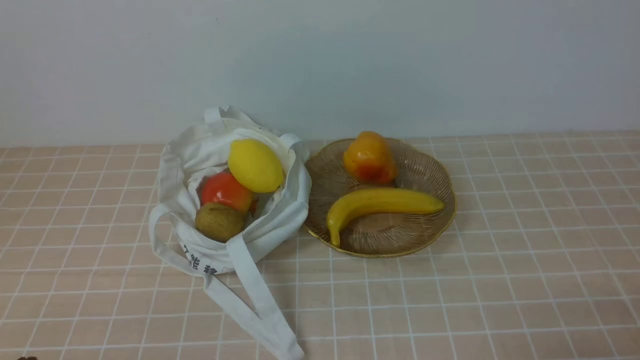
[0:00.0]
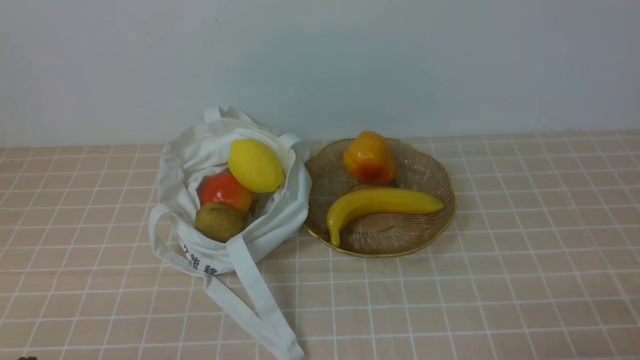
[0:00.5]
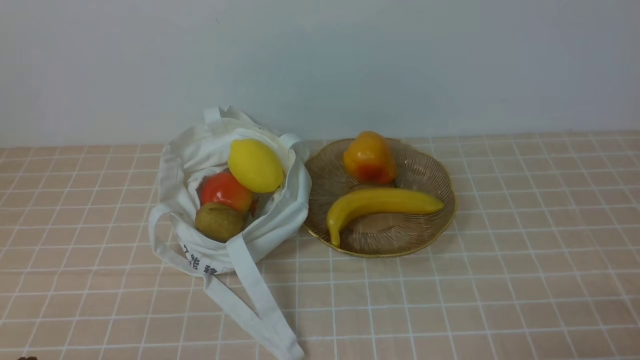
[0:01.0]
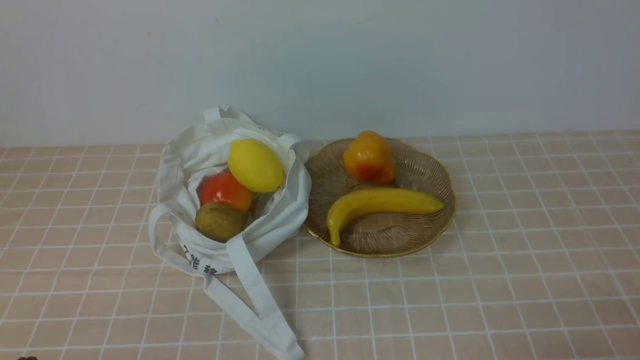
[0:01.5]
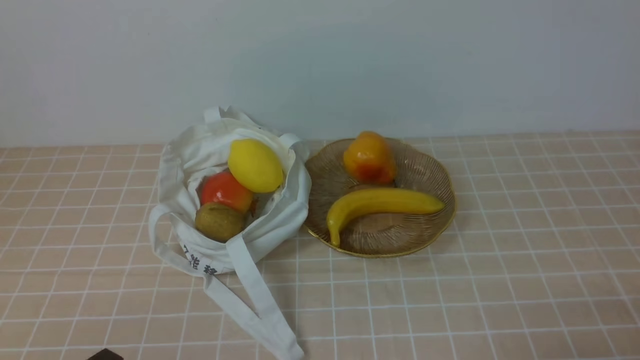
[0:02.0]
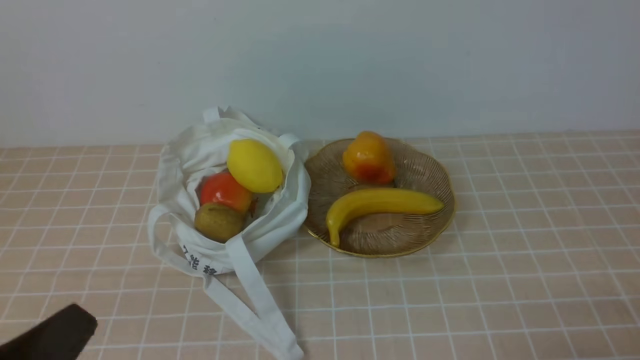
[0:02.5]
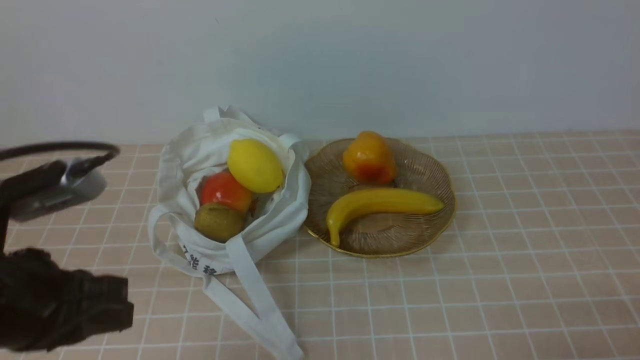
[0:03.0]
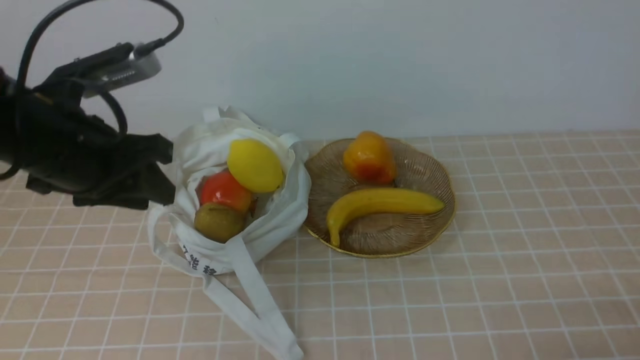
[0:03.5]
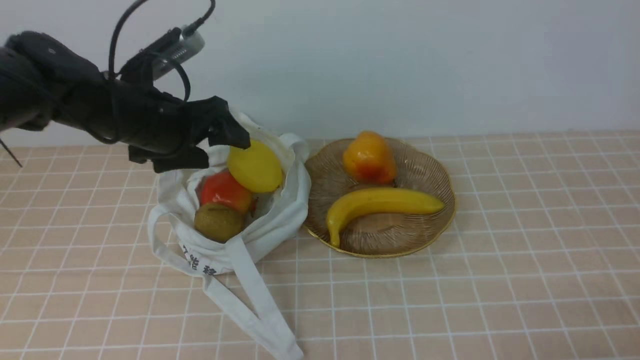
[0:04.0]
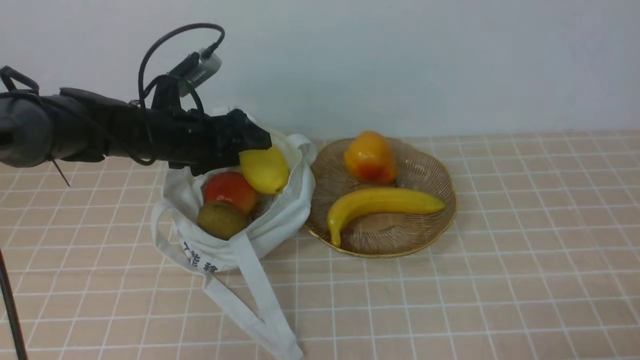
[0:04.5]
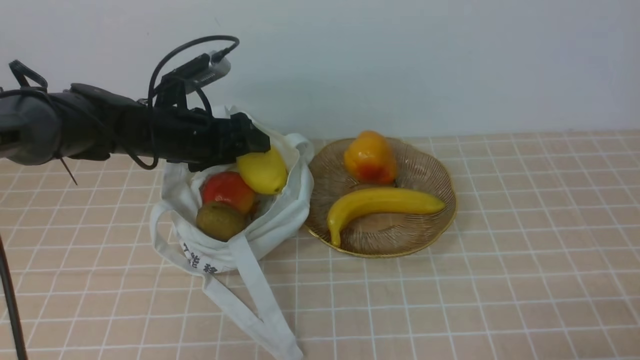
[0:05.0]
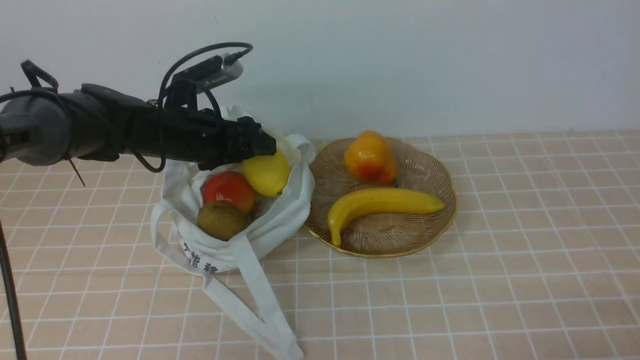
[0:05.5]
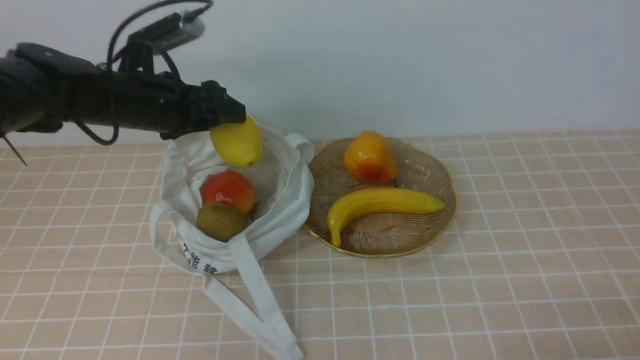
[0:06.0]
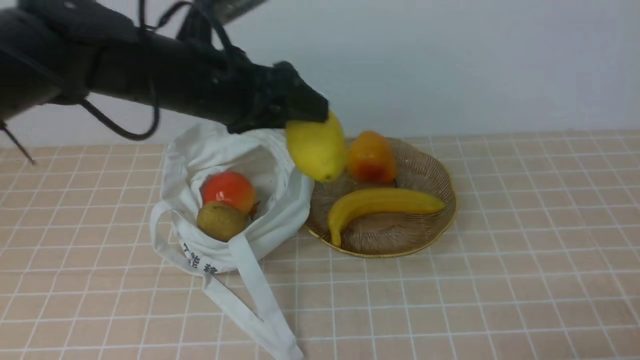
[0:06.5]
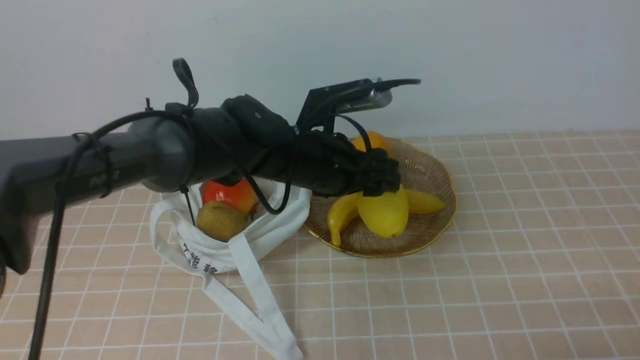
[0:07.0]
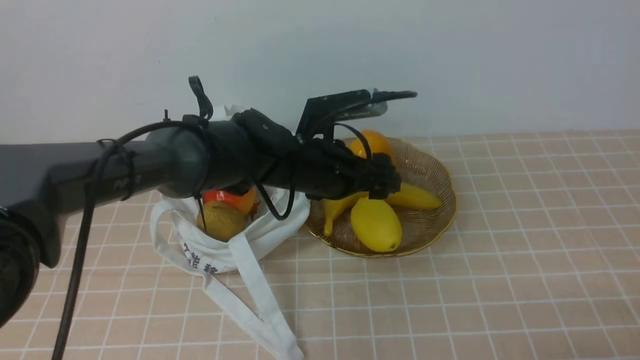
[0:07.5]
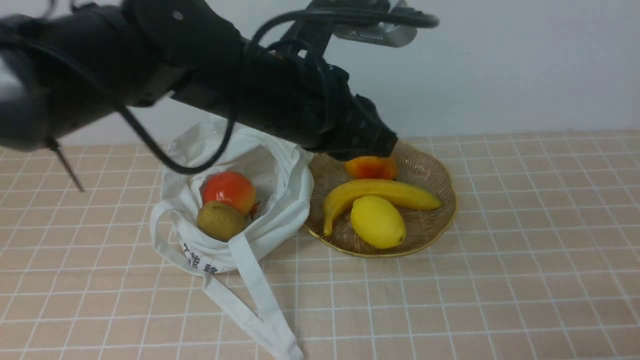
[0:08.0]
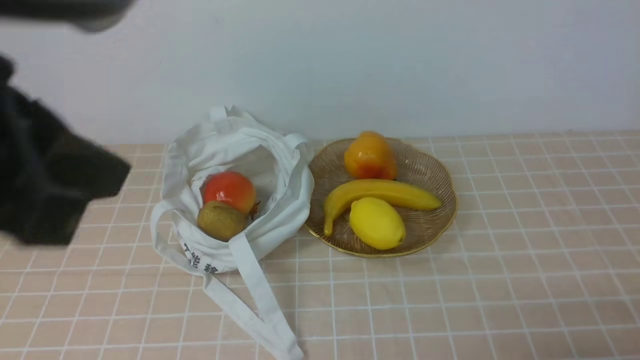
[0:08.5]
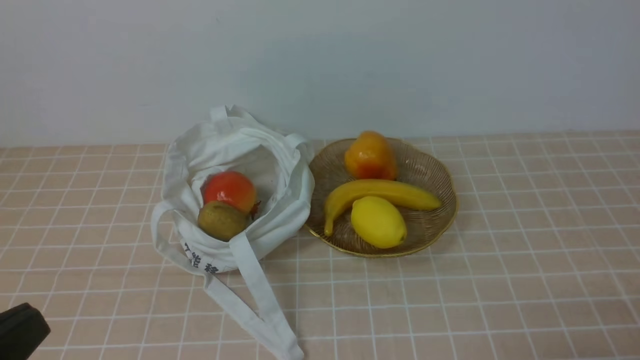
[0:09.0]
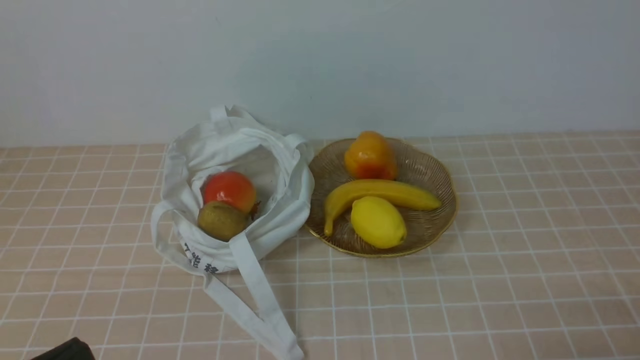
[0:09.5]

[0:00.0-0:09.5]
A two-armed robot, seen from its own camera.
Step, 0:00.0 to 0:05.5: use the left arm to grab a lemon from the bag.
Step, 0:06.0 to 0:07.0: use the left arm to put the lemon into the empty plate on the right.
0:02.0 to 0:04.0: The left gripper moves forward, approximately 35 cm, and opens its fingers.
0:04.0 to 0:05.5: The left gripper shifts some 5 cm downward.
0:05.5 to 0:07.5: The left gripper shifts approximately 15 cm to the right.
0:07.5 to 0:09.5: The left gripper heads backward and to the left, covering roughly 40 cm, and closes.

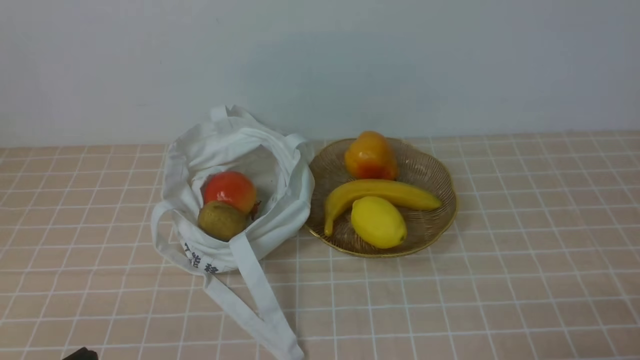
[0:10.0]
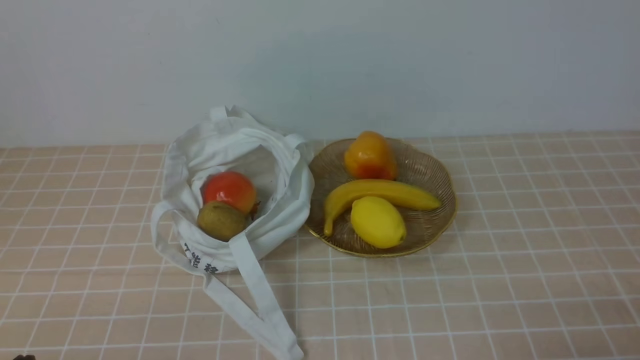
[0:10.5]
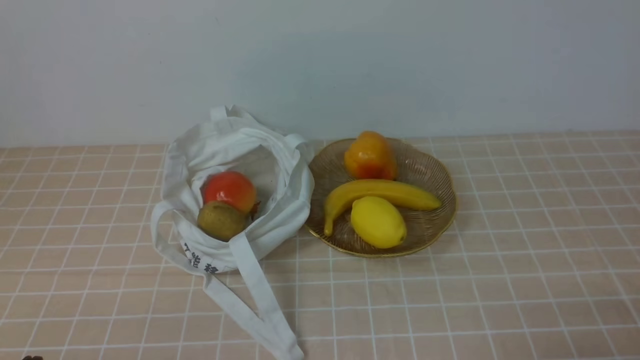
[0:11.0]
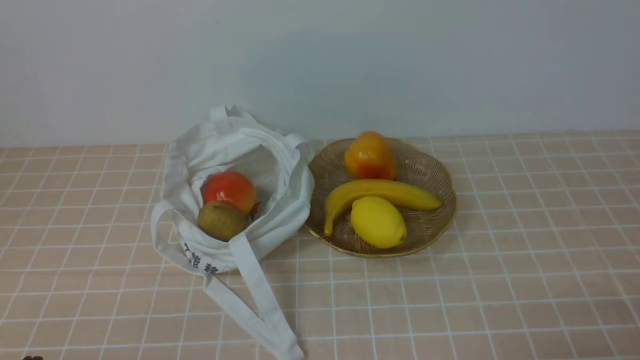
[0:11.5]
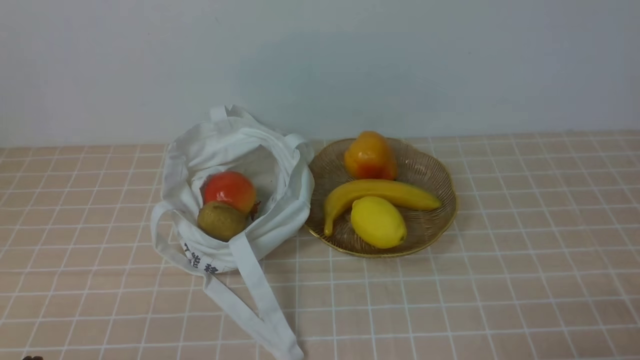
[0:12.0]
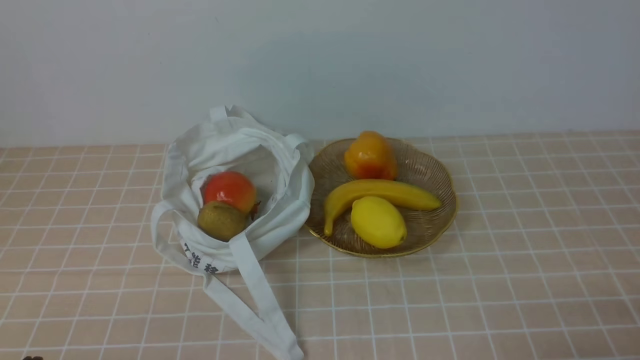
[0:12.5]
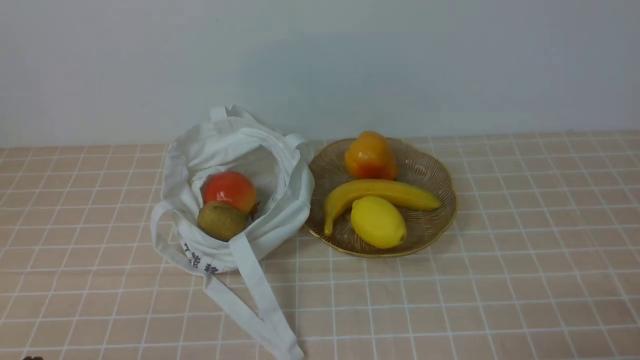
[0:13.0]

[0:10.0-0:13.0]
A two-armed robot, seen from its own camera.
0:11.5 to 0:13.0: Both grippers stay put.
